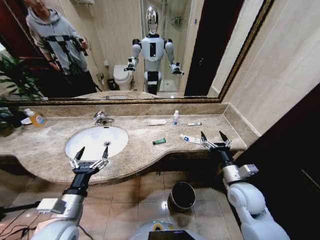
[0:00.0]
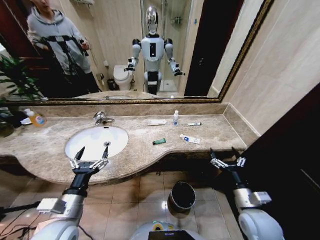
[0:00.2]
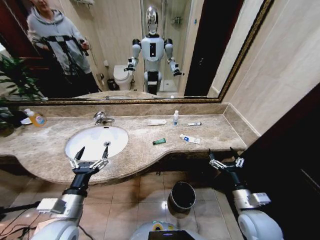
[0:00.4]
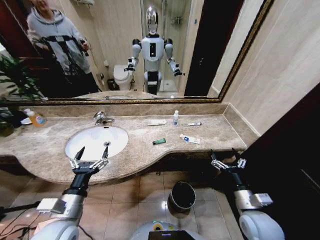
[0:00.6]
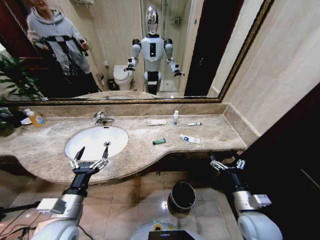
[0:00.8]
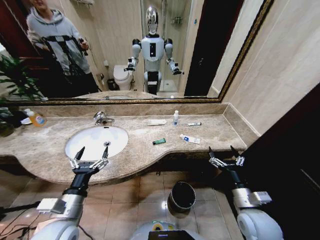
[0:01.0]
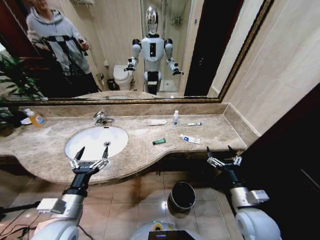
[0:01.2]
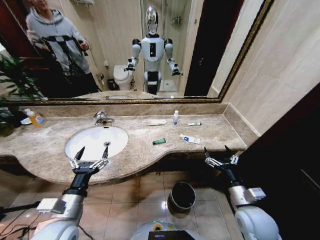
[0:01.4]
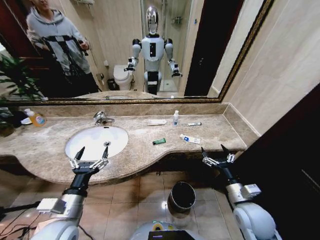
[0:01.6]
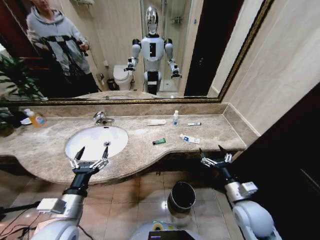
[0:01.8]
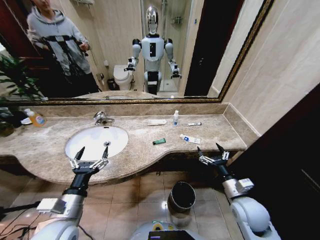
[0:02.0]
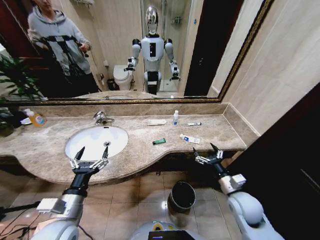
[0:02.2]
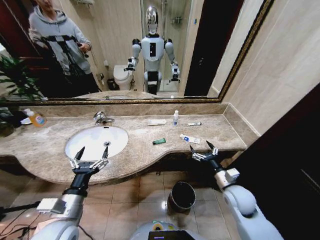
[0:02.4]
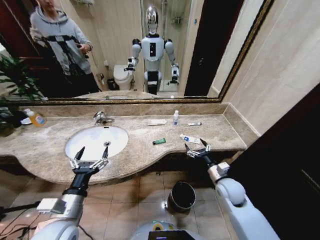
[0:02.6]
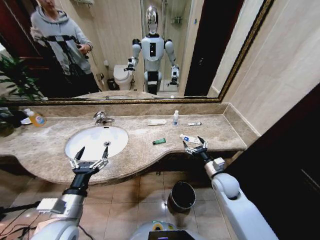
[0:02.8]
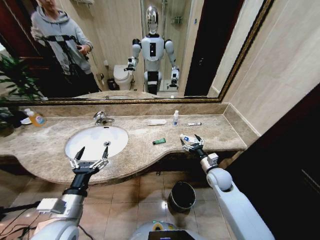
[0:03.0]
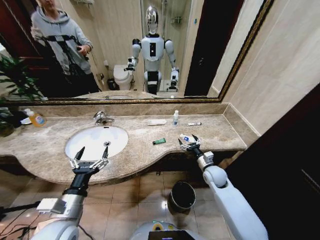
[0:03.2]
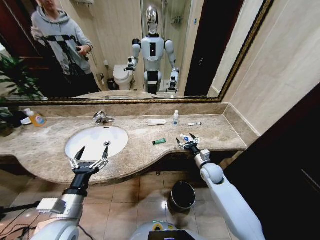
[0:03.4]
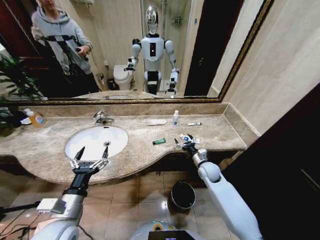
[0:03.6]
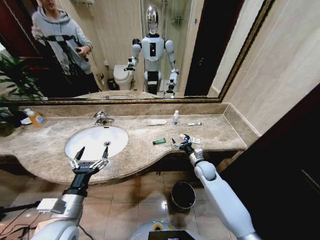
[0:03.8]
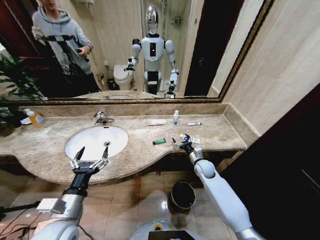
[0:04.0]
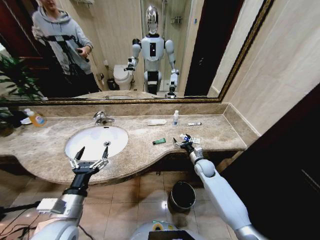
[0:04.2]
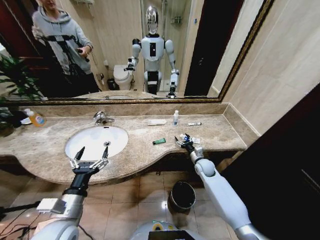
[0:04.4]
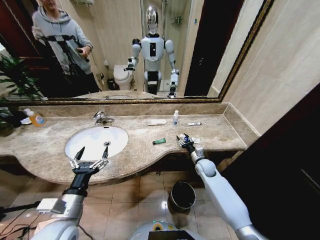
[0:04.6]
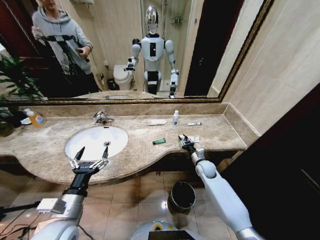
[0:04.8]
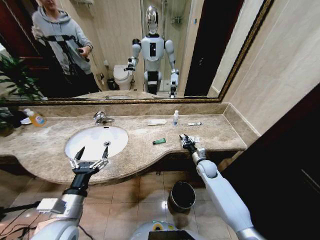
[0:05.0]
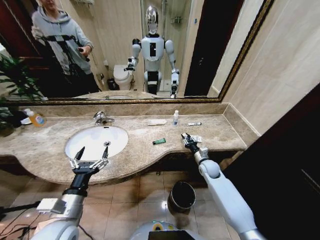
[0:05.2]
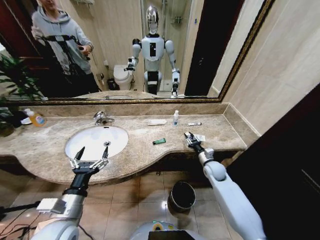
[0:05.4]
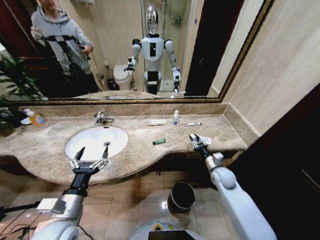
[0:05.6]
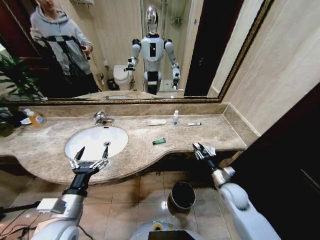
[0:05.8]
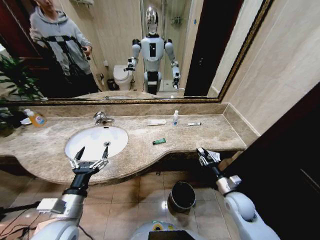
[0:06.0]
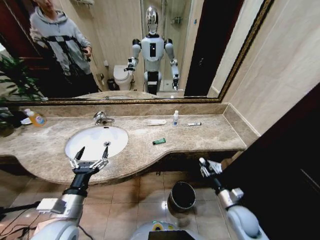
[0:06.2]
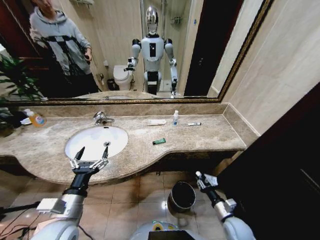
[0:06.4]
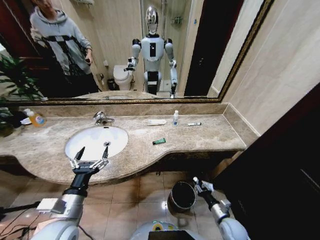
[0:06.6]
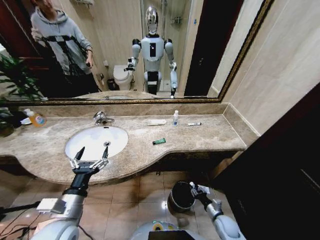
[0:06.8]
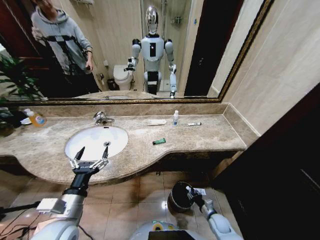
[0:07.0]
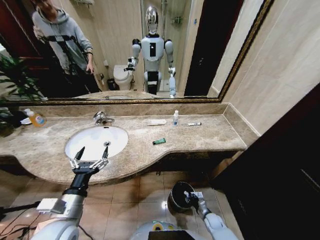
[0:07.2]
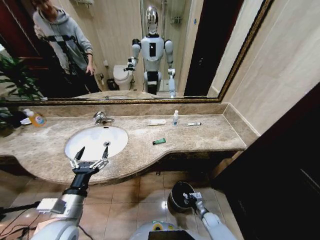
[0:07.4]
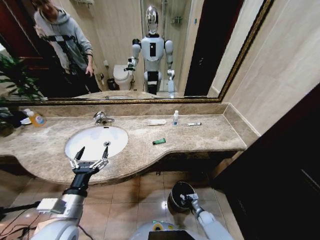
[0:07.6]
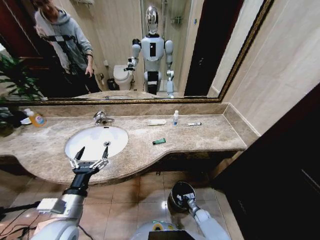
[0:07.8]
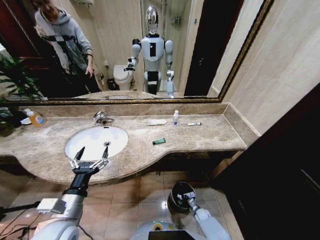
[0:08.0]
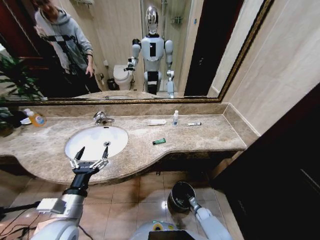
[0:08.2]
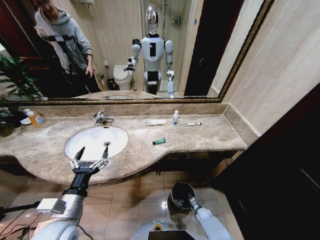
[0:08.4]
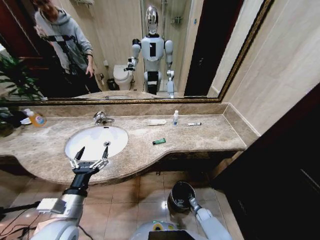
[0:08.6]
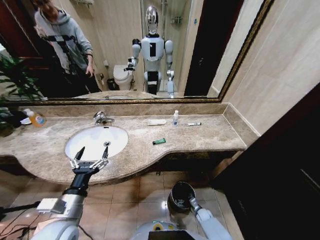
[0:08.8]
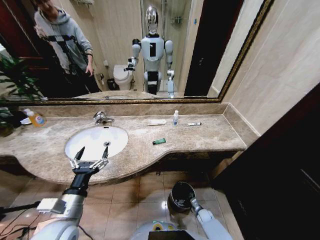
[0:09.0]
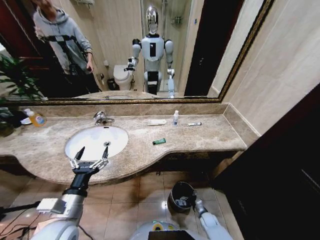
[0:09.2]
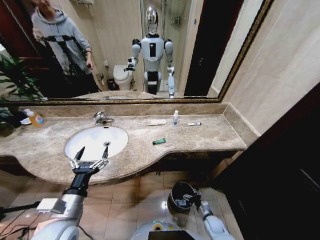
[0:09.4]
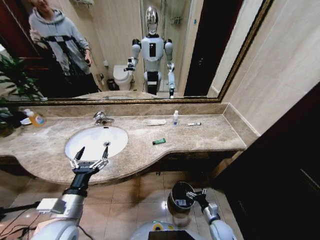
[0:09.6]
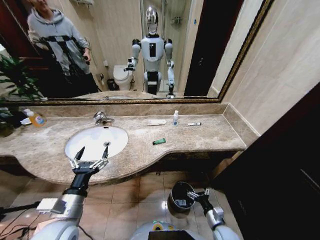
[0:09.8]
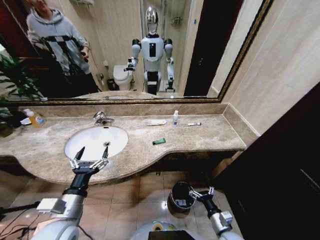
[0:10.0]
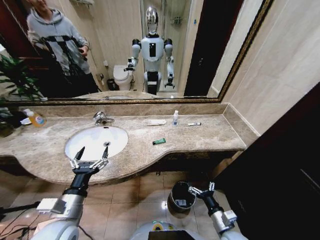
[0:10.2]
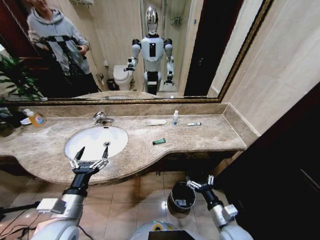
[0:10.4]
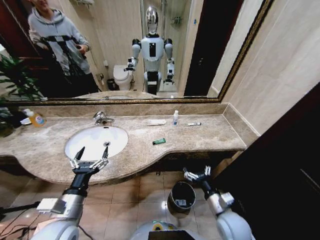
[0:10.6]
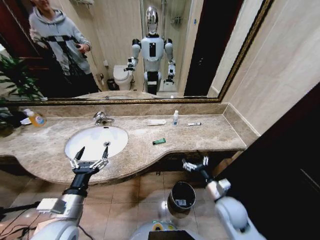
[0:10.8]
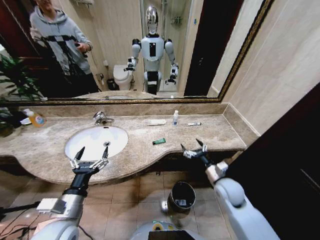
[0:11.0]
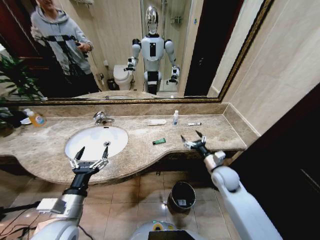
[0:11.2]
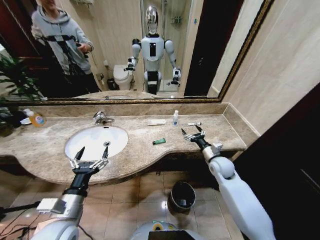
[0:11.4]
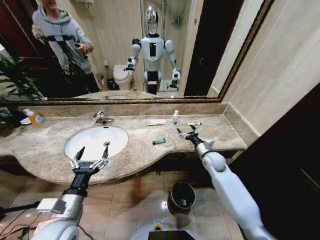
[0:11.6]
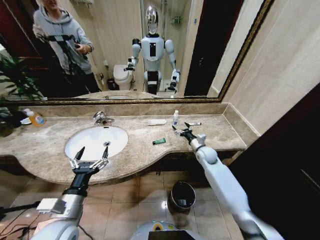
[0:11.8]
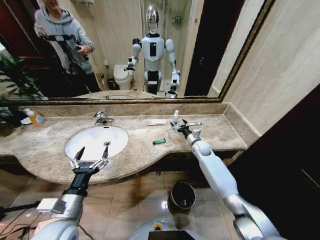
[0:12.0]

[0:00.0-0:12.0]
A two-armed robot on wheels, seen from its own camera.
Task of the whole recording: Pick up the trash from the sink and place it in the trash bin.
0:01.6 to 0:03.0: The right gripper travels forward by roughly 15 cm.
0:03.0 to 0:04.4: The right gripper is displaced forward by some 10 cm.
0:04.4 to 0:06.0: The right gripper moves backward, about 20 cm, and closes up.
0:06.0 to 0:07.6: The right gripper shifts some 30 cm downward.
0:09.0 to 0:10.4: The right gripper moves upward, some 30 cm.
0:10.4 to 0:12.0: The right gripper goes about 35 cm forward.

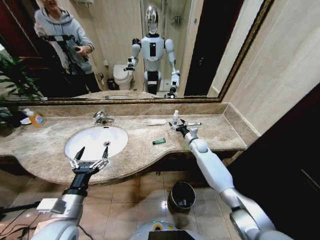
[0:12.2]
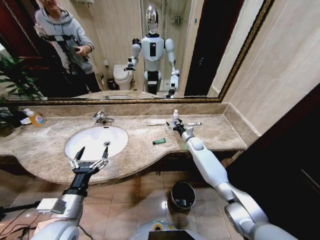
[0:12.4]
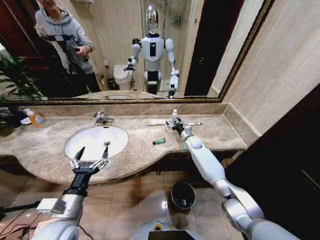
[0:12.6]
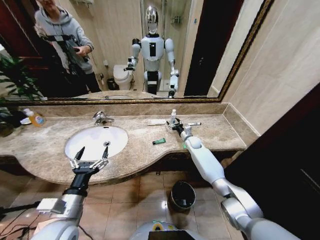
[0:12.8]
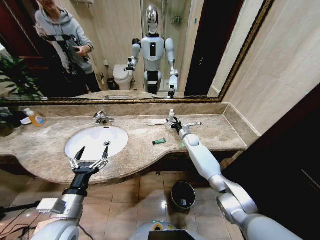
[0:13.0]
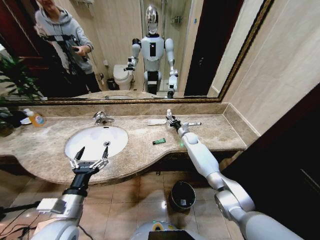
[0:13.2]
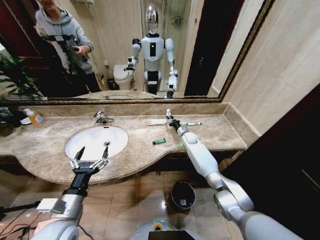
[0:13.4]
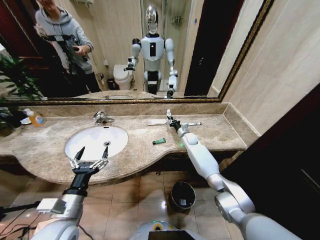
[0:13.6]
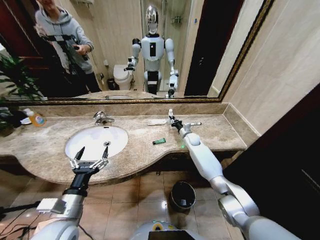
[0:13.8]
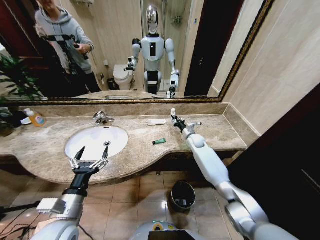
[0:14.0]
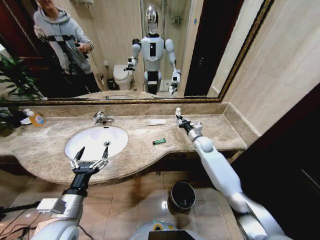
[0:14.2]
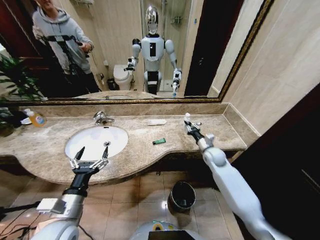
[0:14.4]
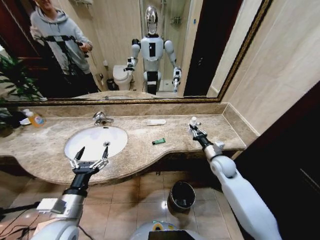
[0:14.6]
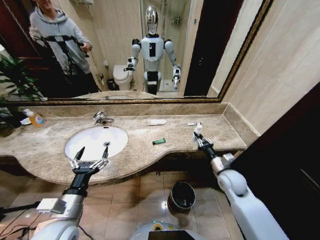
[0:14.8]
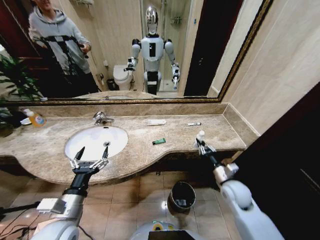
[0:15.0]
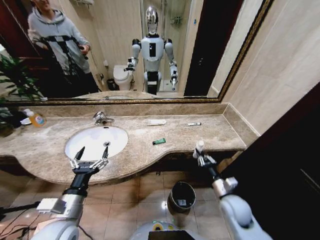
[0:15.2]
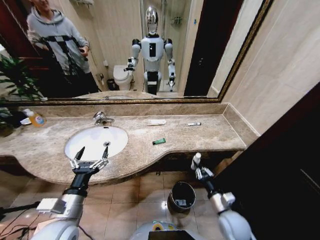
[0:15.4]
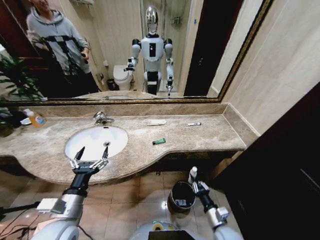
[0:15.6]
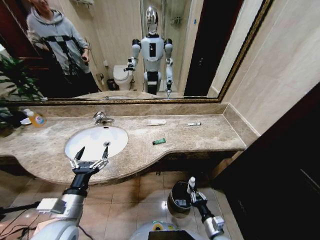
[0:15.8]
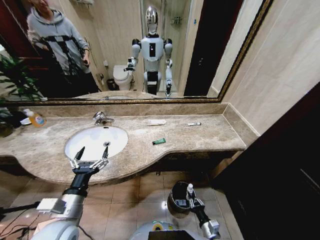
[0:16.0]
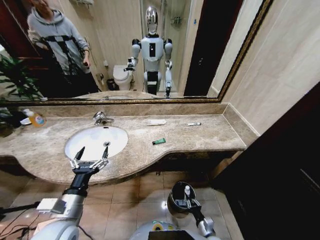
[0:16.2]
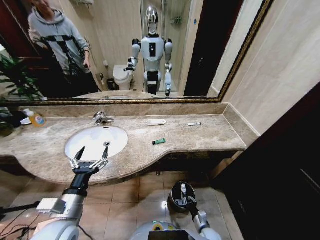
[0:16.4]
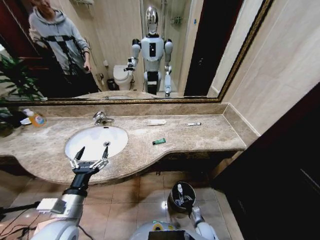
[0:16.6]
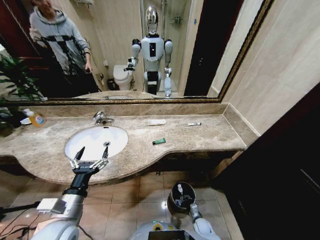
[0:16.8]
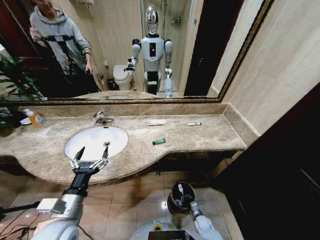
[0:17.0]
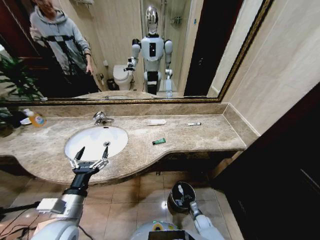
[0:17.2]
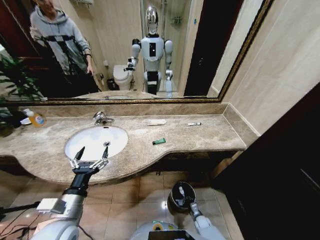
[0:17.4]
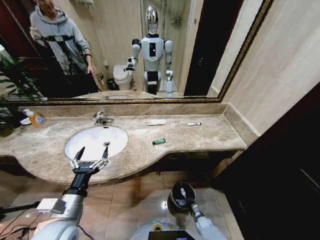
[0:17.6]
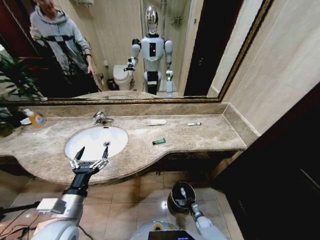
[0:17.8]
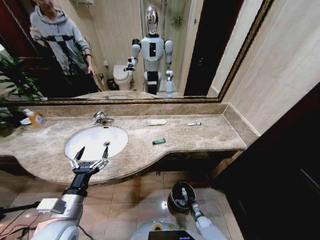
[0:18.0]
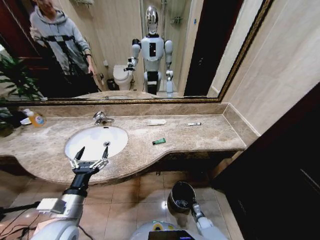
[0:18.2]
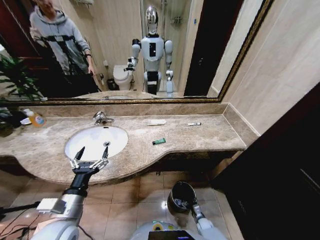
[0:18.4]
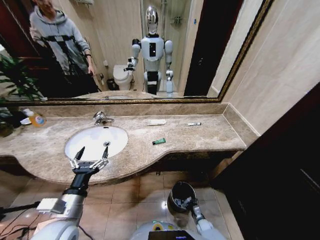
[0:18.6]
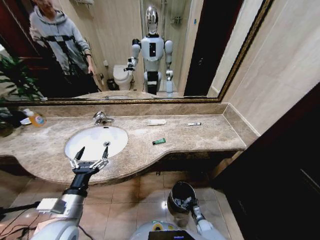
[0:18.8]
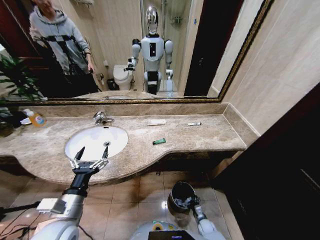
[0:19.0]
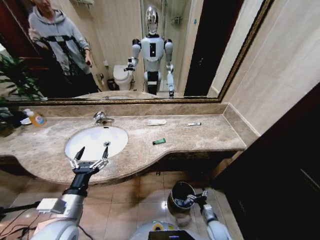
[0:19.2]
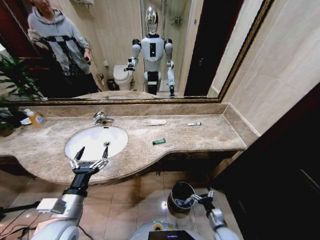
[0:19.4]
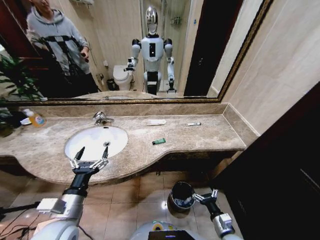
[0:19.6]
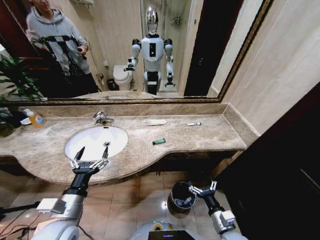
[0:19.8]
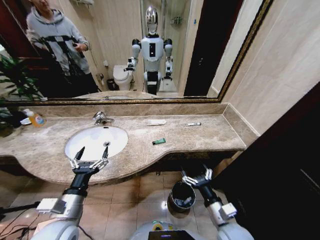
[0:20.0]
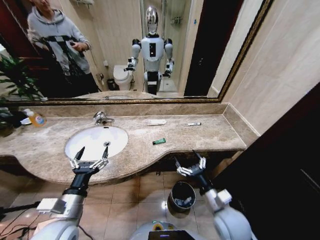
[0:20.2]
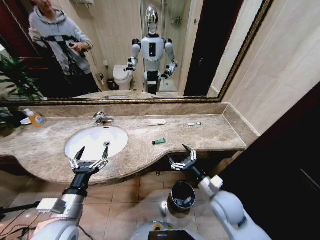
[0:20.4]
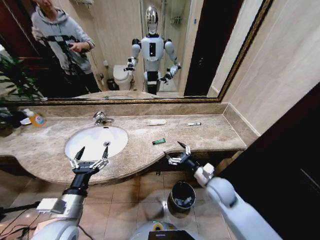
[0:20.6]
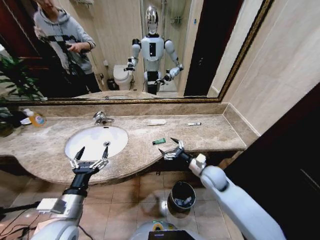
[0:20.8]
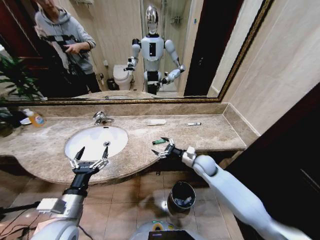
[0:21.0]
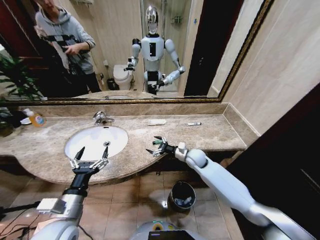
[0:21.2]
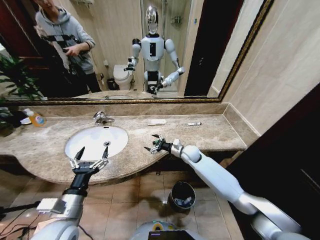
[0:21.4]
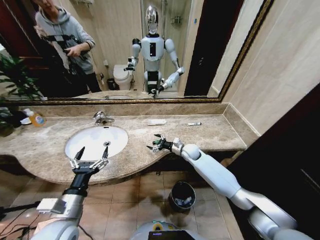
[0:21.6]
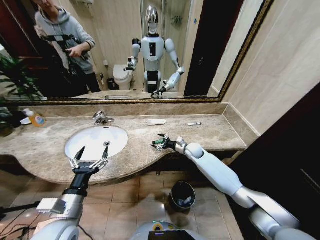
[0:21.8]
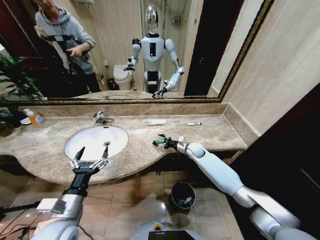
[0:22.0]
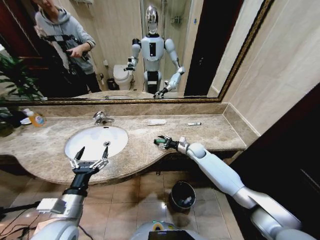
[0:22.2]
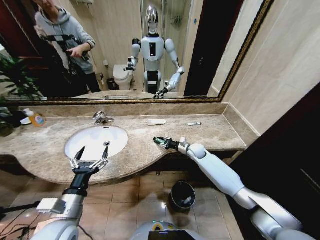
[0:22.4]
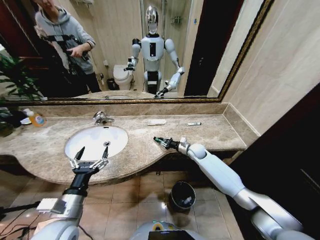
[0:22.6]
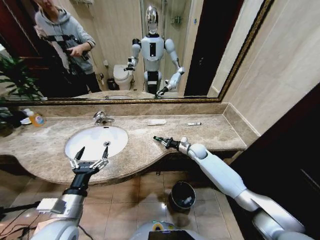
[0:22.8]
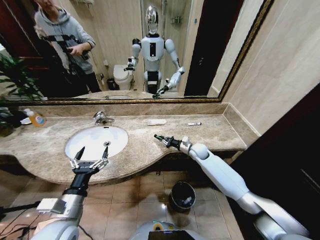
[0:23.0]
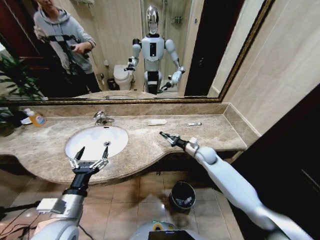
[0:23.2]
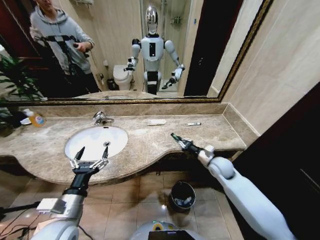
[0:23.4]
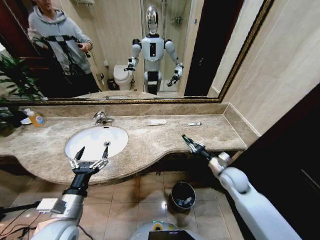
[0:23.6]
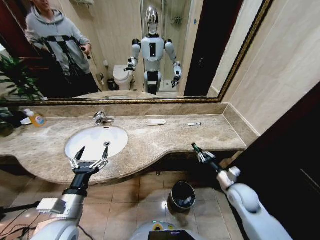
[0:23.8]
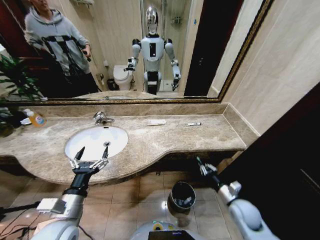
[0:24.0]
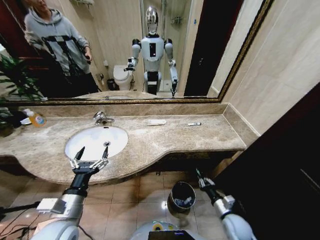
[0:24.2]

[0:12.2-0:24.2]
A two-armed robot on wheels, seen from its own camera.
Task of the whole recording: Pick up the trash from the sink and place it in the trash bin.
0:12.2 to 0:13.8: The right gripper shifts by some 5 cm, and closes its fingers.
0:13.8 to 0:15.2: The right gripper travels backward by roughly 35 cm.
0:15.2 to 0:16.6: The right gripper travels downward by about 25 cm.
0:16.6 to 0:18.2: The right gripper goes about 10 cm downward, and opens its fingers.
0:18.2 to 0:19.8: The right gripper travels upward by some 30 cm, and opens.
0:19.8 to 0:21.2: The right gripper shifts about 30 cm forward.
0:21.2 to 0:22.6: The right gripper heads forward, covering about 5 cm, and closes its fingers.
0:22.6 to 0:24.2: The right gripper is displaced backward by roughly 30 cm.
